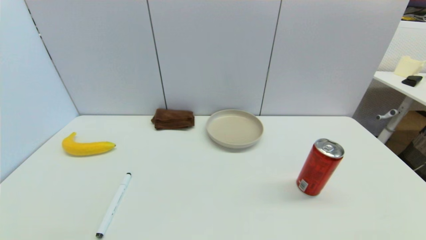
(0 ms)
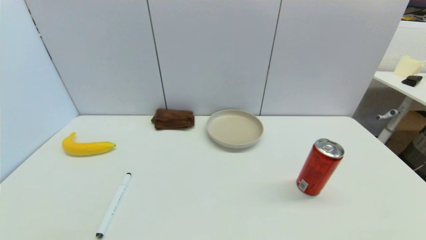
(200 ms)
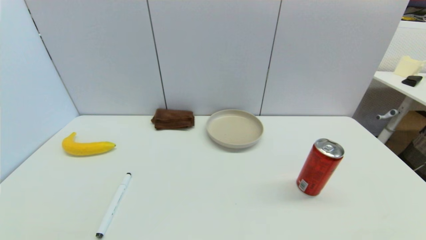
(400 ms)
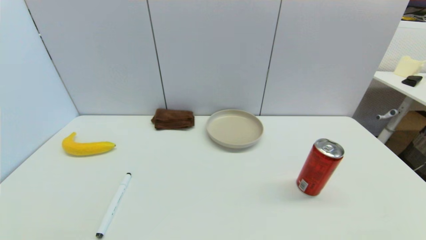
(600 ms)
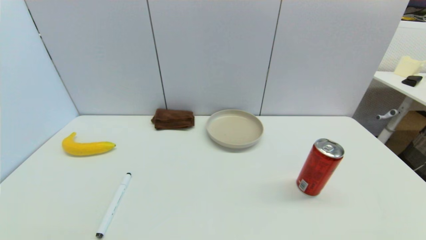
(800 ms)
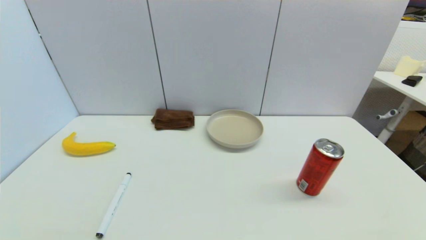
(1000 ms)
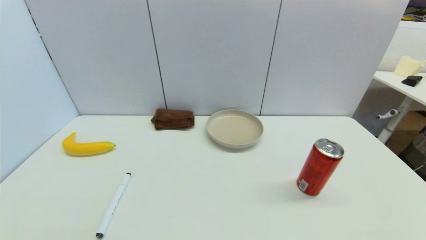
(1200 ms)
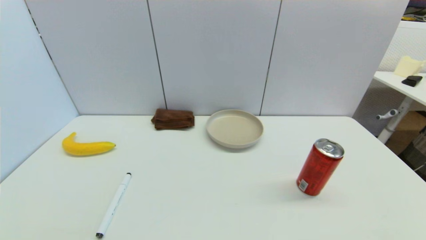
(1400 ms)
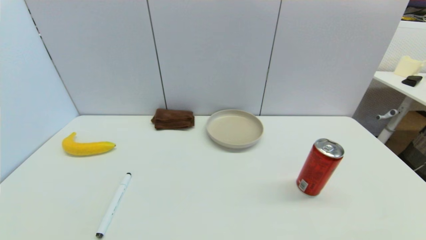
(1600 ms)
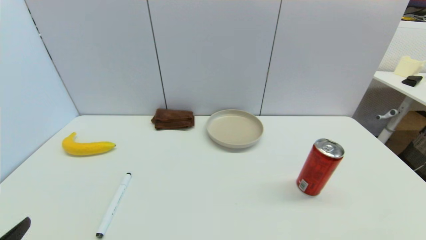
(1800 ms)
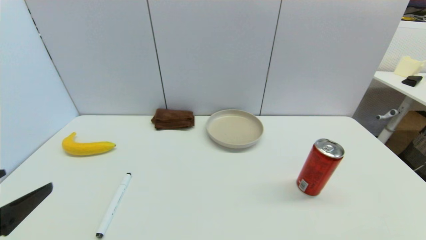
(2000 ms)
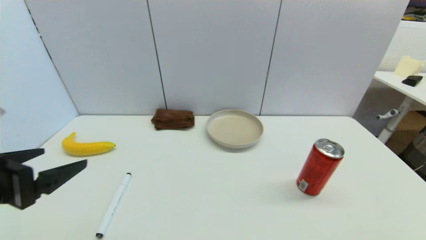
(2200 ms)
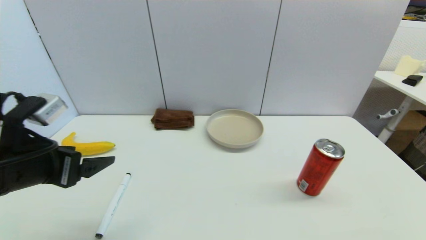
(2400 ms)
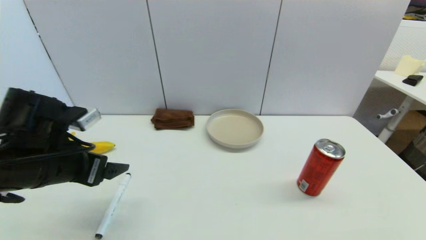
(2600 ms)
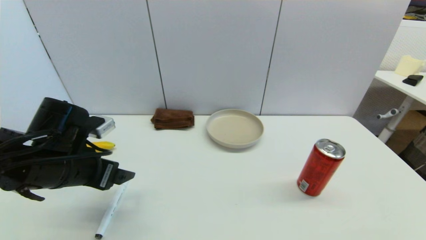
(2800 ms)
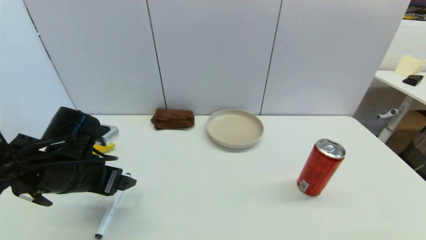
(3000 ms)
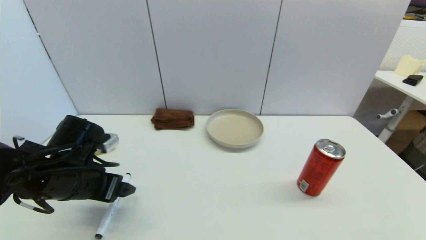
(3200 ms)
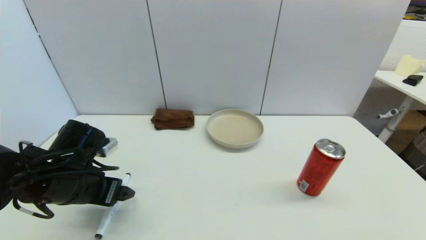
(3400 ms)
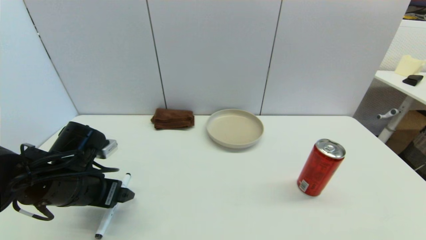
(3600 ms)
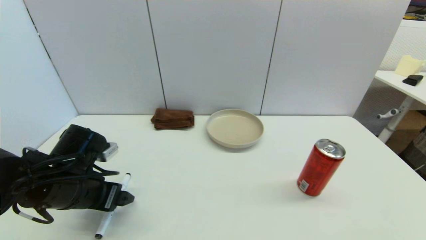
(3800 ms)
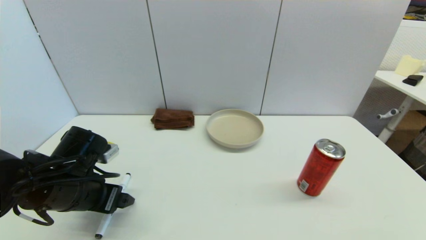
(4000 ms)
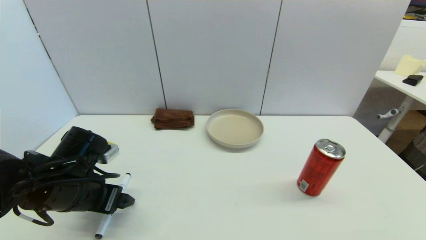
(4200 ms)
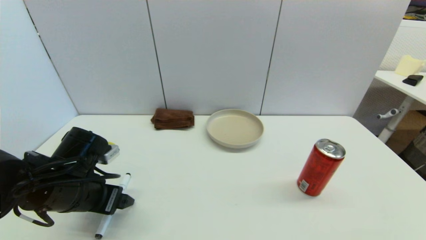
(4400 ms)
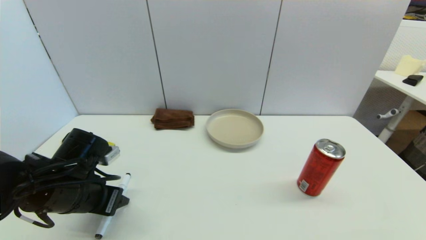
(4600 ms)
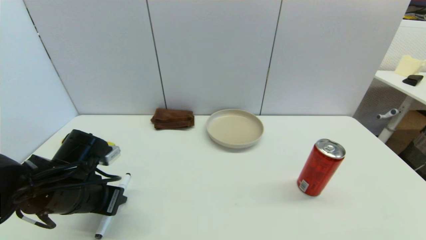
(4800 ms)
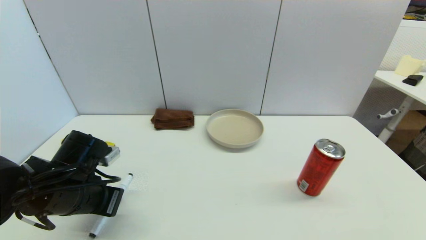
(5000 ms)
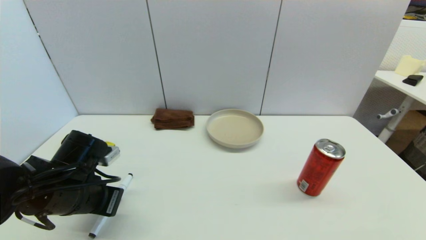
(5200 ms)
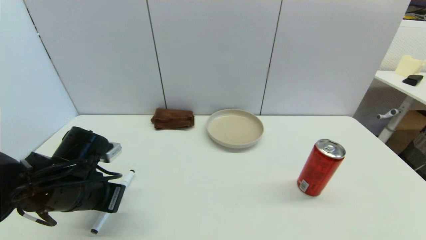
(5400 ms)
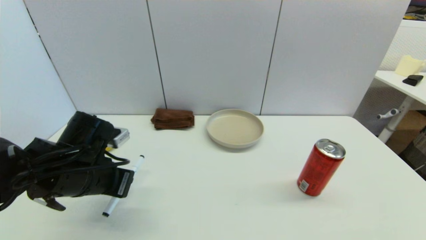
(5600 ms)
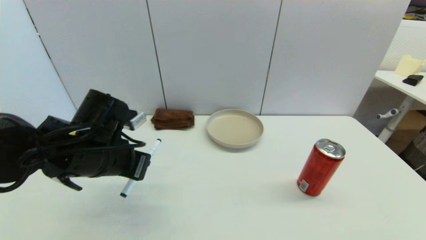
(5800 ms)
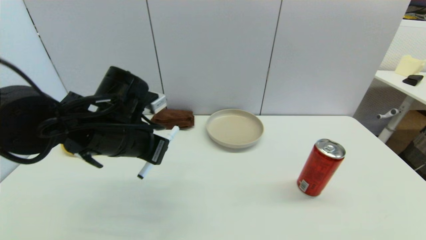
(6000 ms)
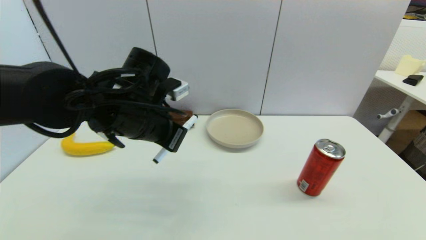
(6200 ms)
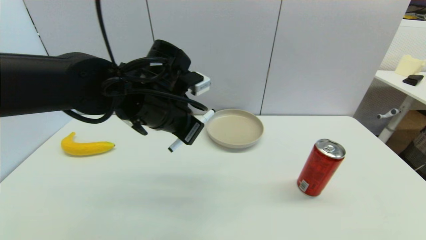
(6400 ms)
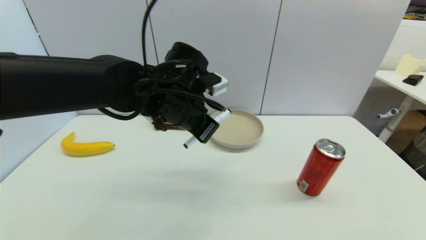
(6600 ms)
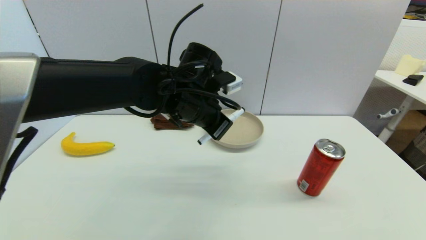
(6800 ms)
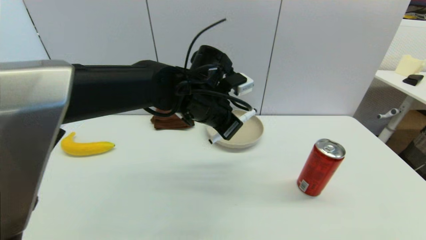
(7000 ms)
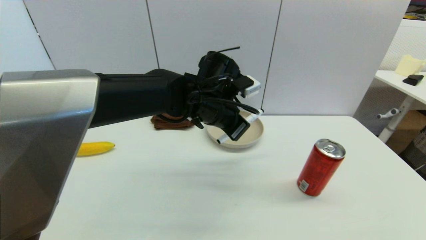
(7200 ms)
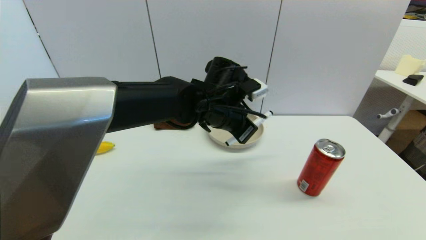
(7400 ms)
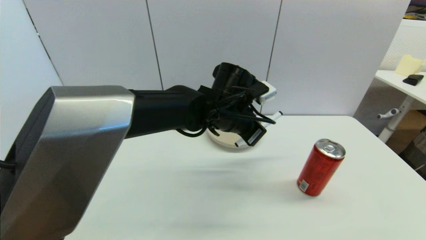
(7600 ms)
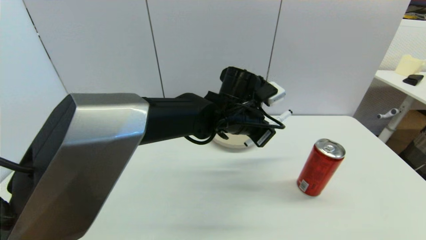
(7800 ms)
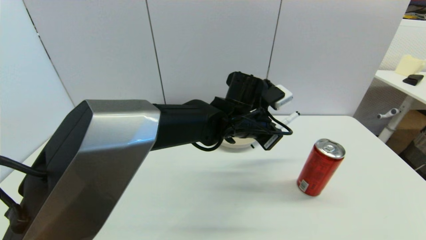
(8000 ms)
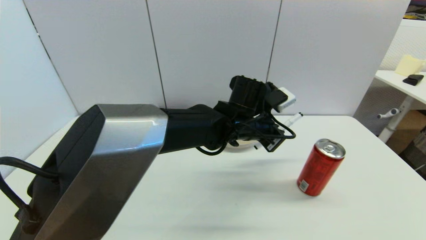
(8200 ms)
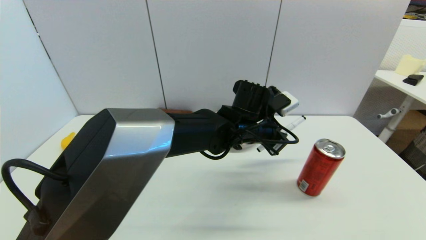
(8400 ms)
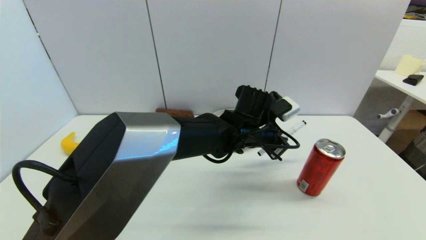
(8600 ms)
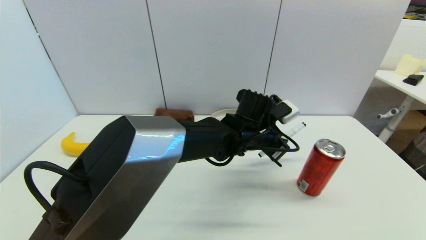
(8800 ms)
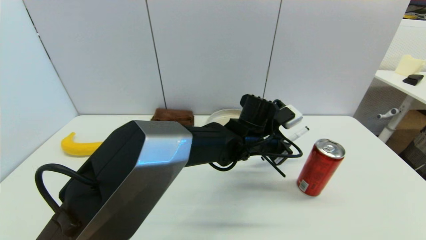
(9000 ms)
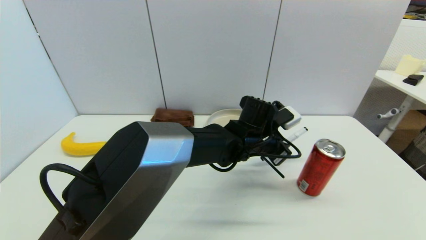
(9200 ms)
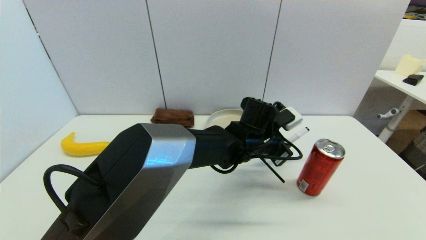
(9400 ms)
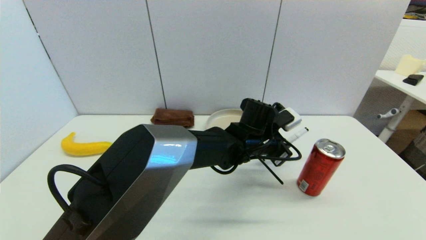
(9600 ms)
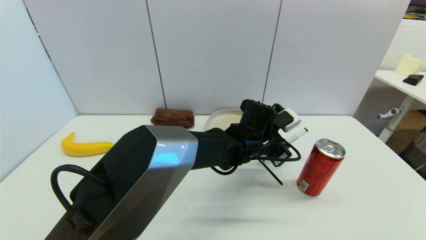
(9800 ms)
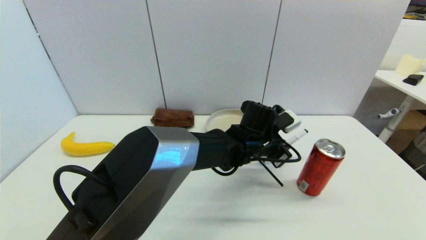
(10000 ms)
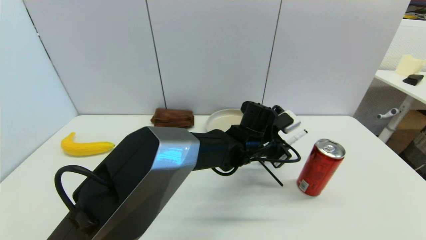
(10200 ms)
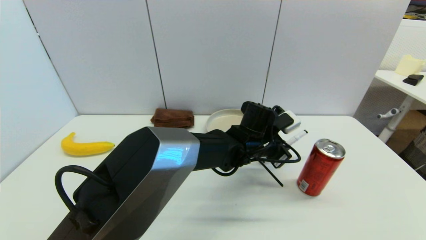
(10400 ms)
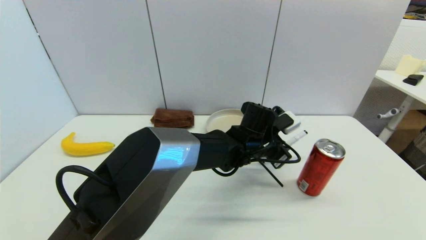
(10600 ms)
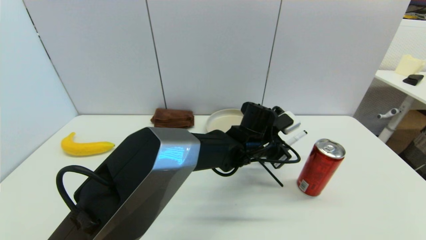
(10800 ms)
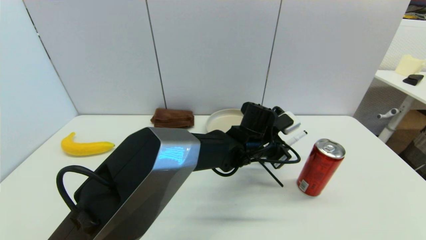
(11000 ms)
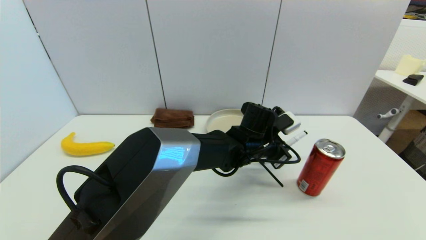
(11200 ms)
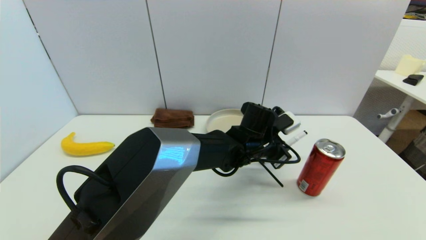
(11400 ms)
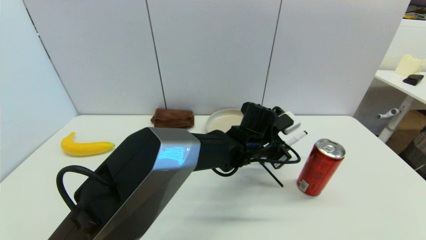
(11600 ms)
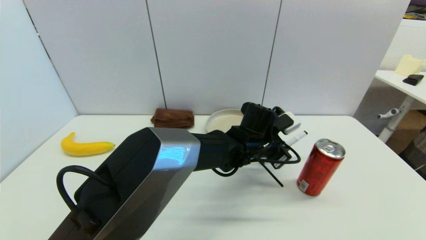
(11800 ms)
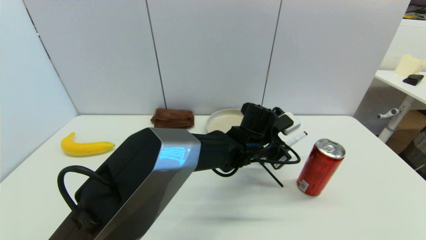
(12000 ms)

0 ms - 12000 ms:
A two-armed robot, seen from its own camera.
Task of the whole recording: put the black marker in the designated position.
Step, 1800 ms - 5200 ms: Grasp the Marker pen with left gripper.
1600 ms - 3000 ms: The left gripper heads forward, covering about 25 cm.
3000 ms - 4400 ms: The grippers make only small movements.
4400 ms - 6000 ms: The left gripper goes about 10 cm upward and to the right, and closes.
6000 ms - 7600 ms: The left gripper heads to the right and forward, covering about 20 cm.
7600 ms - 9000 ms: The left gripper shifts approximately 10 cm to the right and downward.
9000 ms - 10400 ms: The grippers move only a little.
10400 ms - 12000 ms: Both grippers stay about where they are.

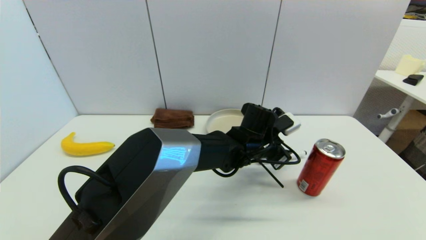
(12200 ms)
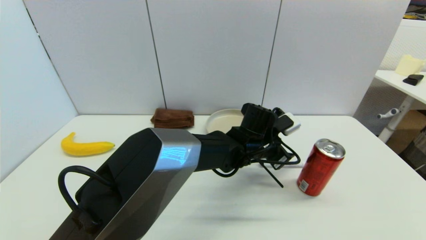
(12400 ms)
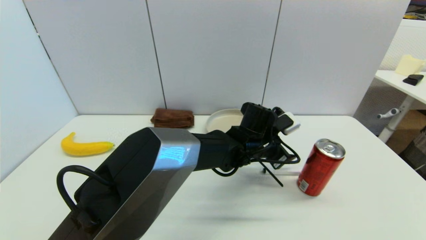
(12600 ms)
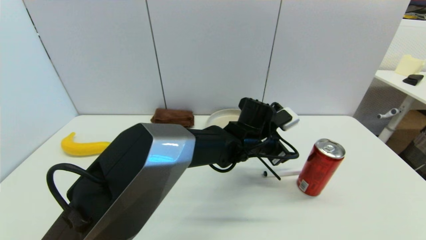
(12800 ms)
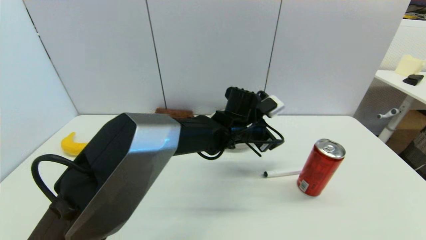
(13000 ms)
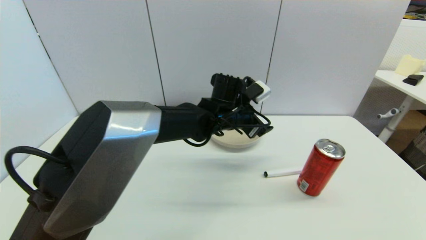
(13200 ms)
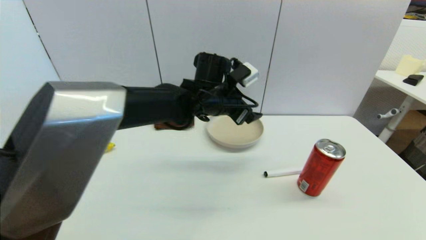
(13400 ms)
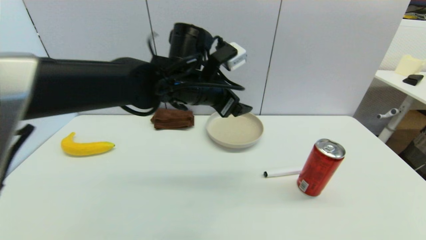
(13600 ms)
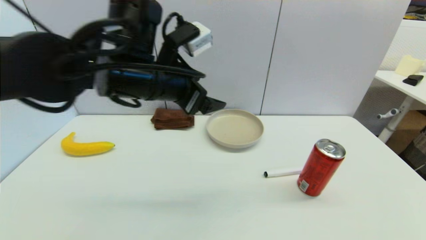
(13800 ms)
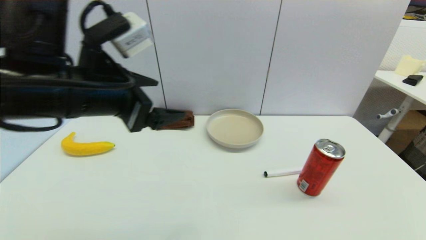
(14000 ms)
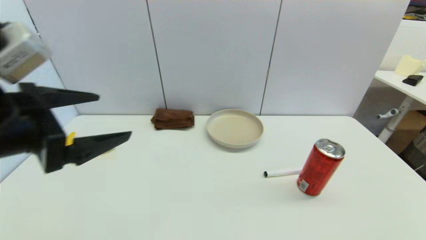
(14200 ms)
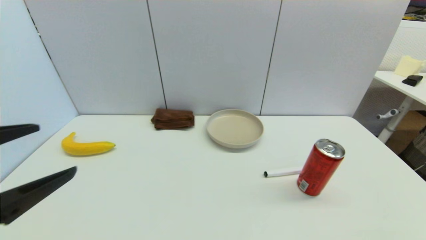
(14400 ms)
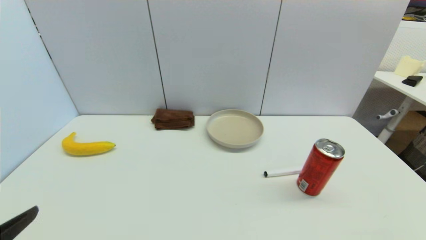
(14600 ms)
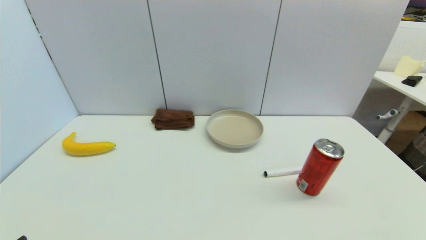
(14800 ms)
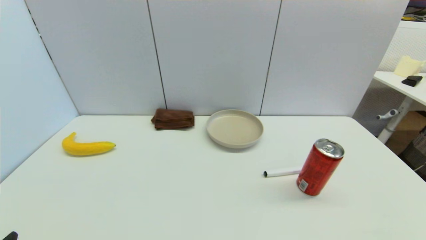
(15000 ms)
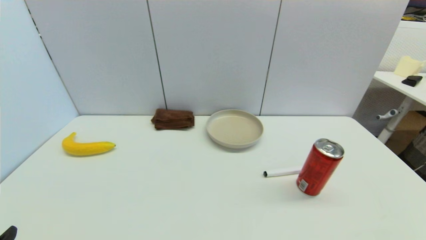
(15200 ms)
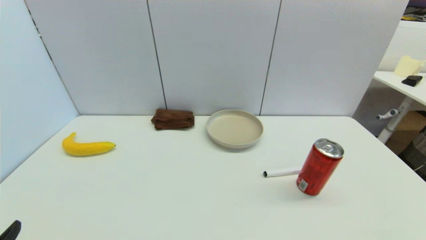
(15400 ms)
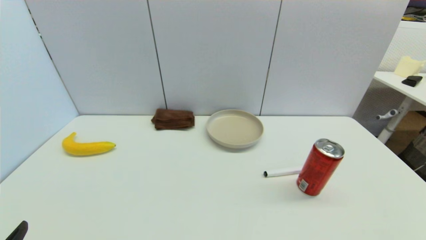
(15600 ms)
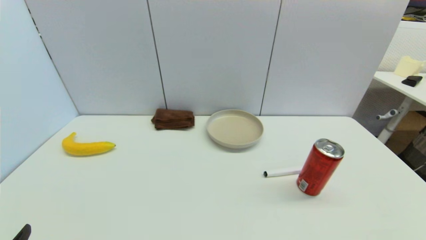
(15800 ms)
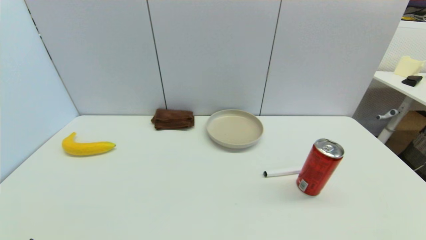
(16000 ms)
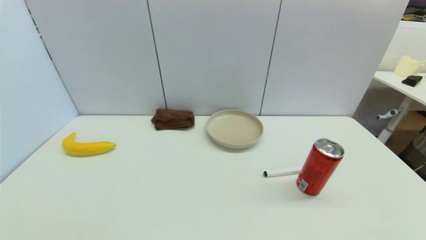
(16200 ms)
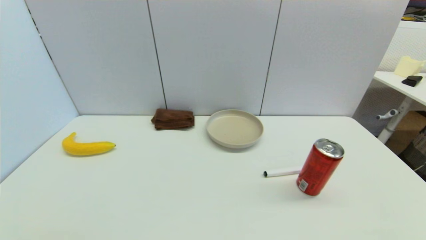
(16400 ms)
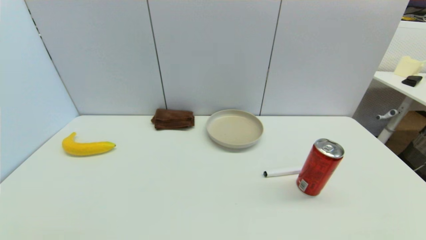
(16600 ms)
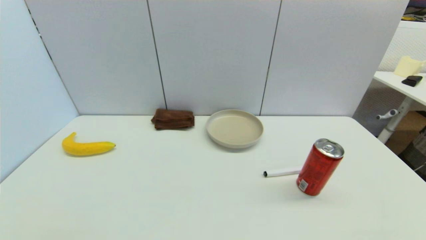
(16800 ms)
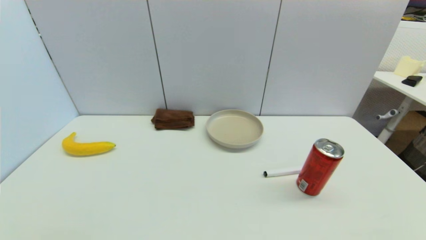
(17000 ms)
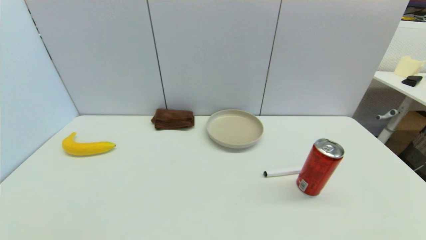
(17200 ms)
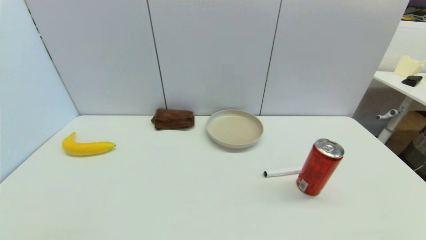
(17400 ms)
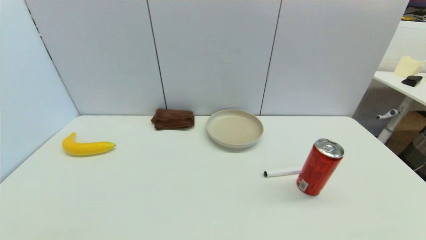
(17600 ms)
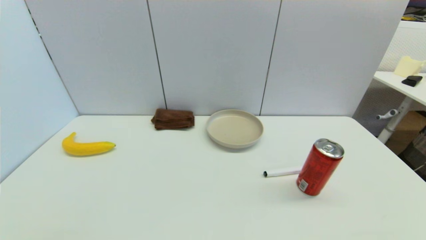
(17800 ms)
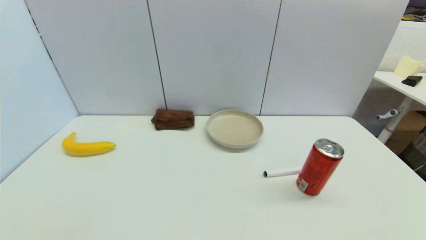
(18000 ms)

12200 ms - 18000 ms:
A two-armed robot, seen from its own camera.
Task of the whole recording: put the black marker in the designated position.
12200 ms - 13600 ms: The left gripper is displaced upward and to the left by about 20 cm, and opens.
13600 ms - 15000 ms: The left gripper moves backward and to the left, roughly 40 cm.
16600 ms - 18000 ms: The two grippers keep their place.
